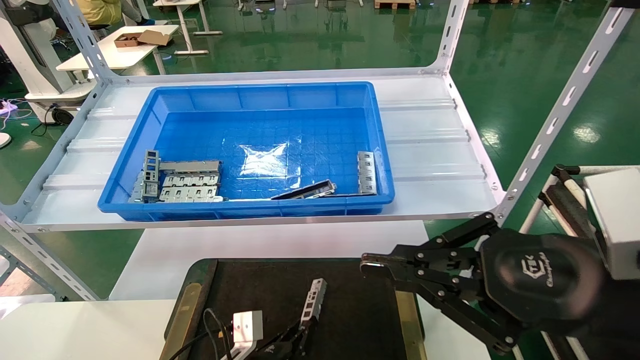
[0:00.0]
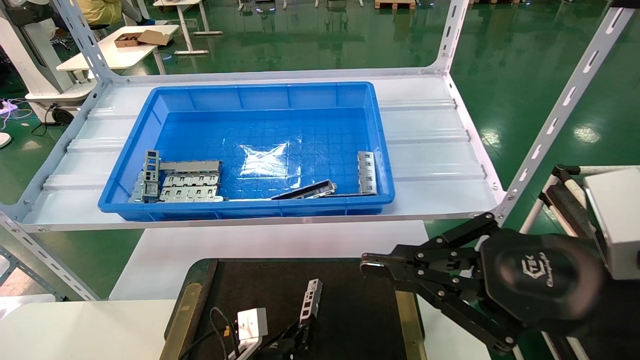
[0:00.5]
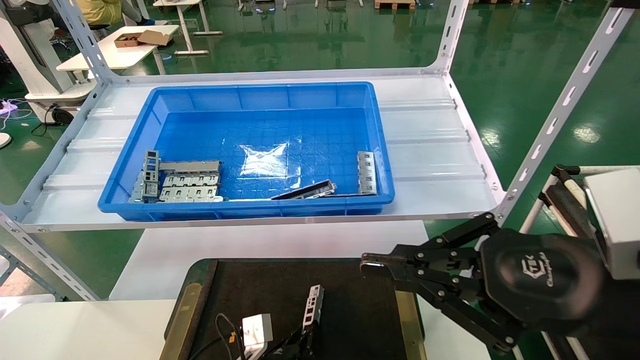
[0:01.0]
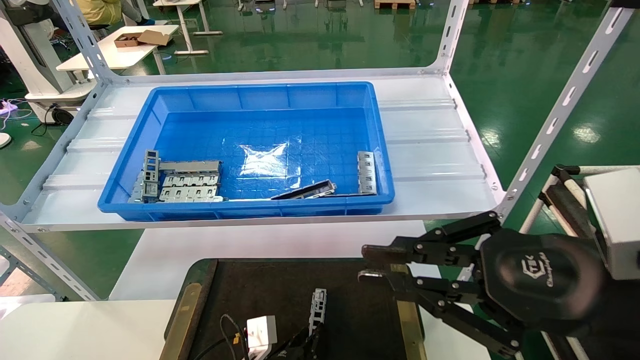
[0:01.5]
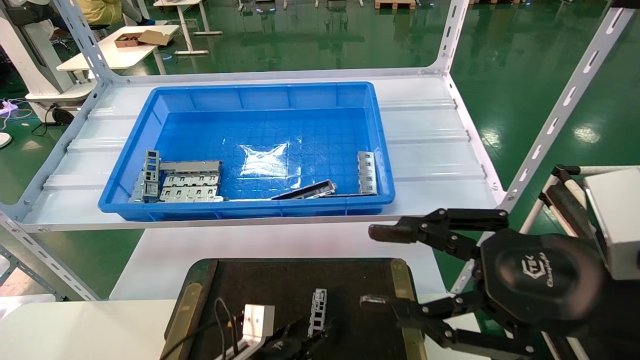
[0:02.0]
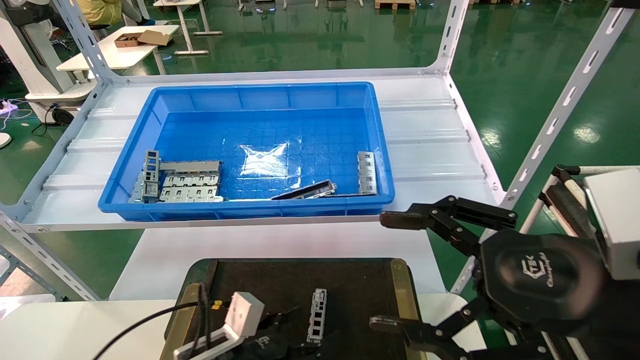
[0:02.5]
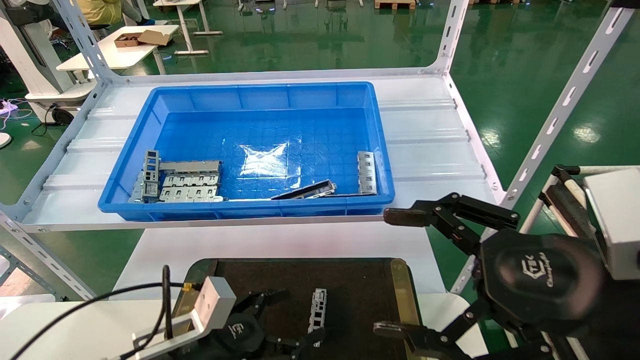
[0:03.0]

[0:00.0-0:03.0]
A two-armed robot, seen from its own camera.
Task of the whole recording: Grasp the part with one hand and place it on the black container.
0:00.0 to 0:01.5: There are only small adjustments of the grippers.
0:01.5 to 0:03.0: The left gripper moves upward and to the left, about 15 cm, and opens up. The right gripper opens its fingers.
